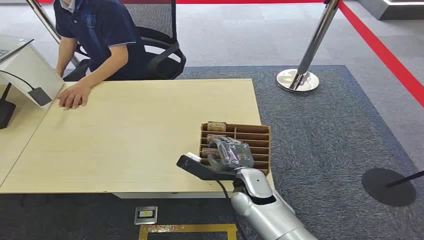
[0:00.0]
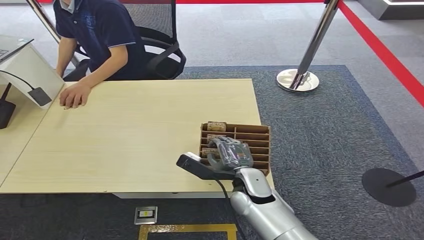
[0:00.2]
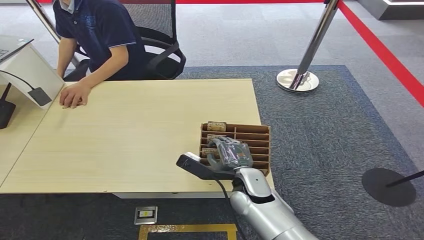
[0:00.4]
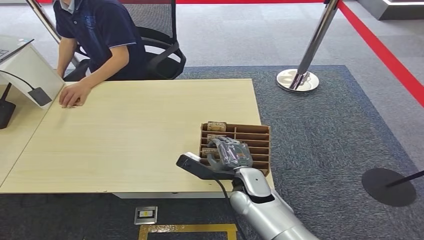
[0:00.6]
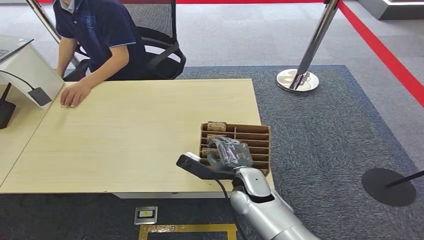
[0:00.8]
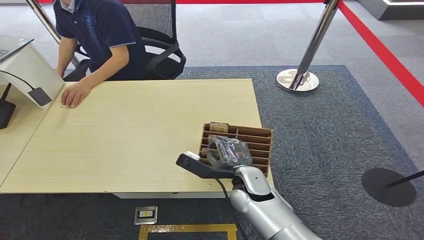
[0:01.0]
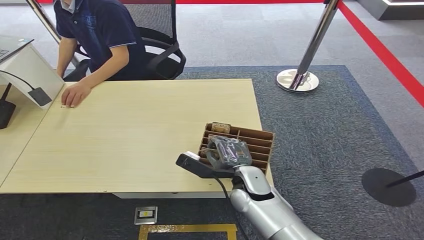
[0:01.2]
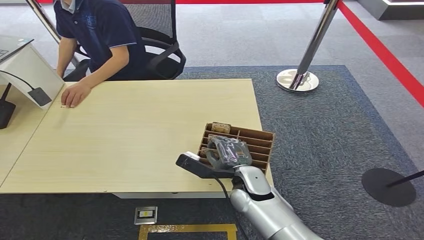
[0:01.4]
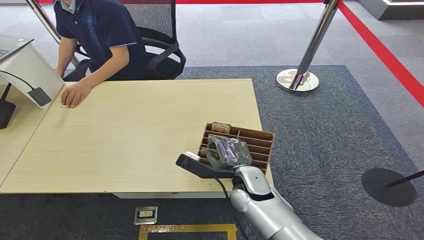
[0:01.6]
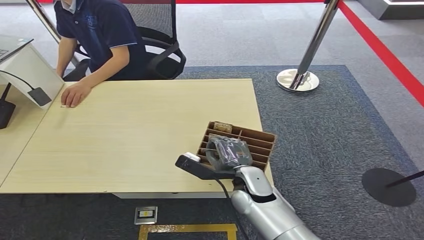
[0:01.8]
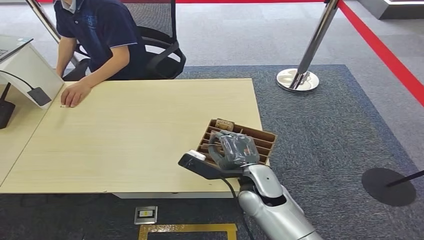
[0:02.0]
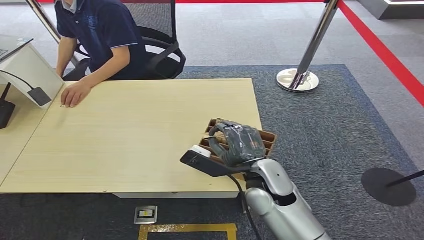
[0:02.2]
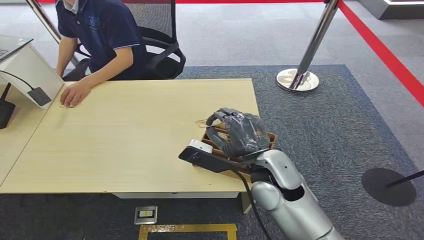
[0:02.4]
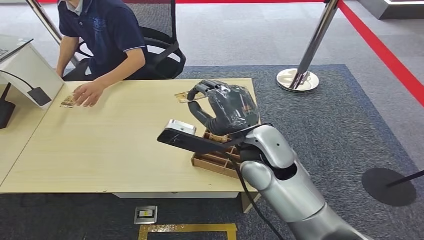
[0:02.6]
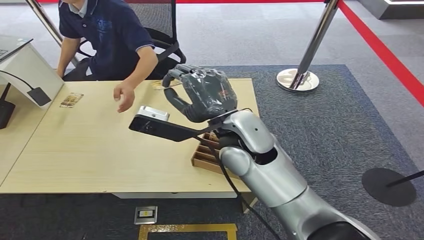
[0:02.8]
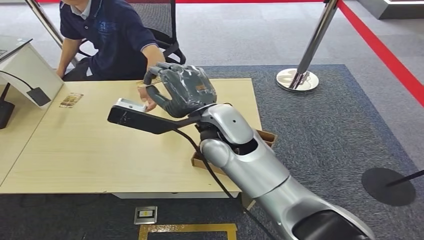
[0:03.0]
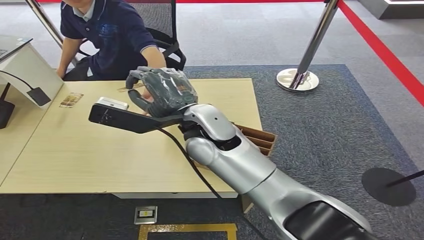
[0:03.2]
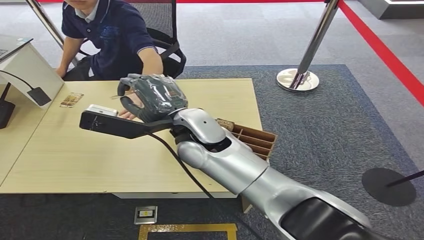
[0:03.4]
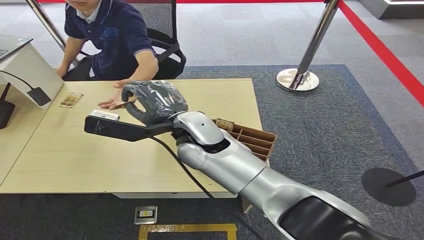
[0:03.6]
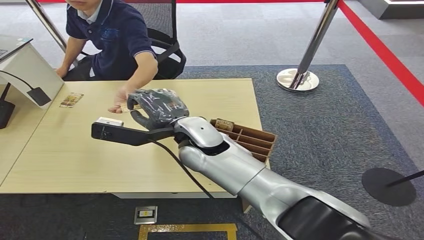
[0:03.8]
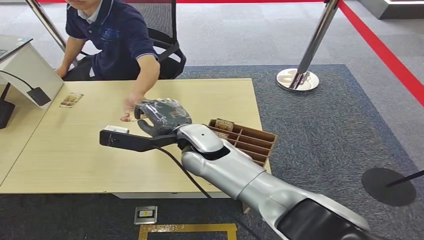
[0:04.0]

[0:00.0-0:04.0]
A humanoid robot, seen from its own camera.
Task of the whole recording: Pick up the card and hand it over to the target person.
Step, 0:00.0 to 0:02.6: Pick up the key card from the card box.
Step, 0:02.8 to 0:04.0: Hand the key card to the target.
0:01.4 to 0:02.6: The right hand moves upward, roughly 20 cm.
